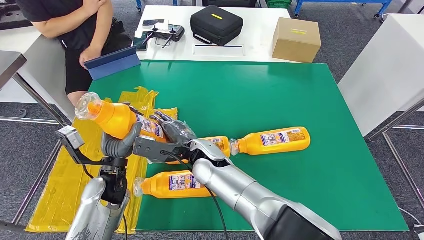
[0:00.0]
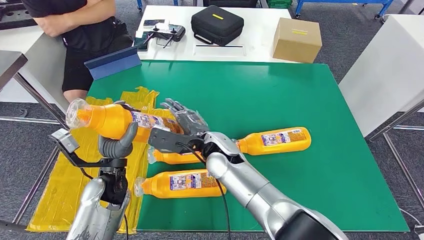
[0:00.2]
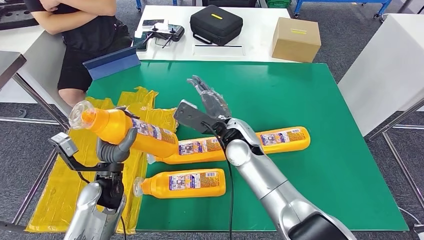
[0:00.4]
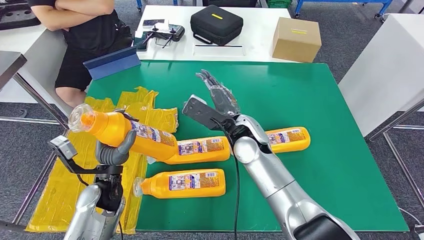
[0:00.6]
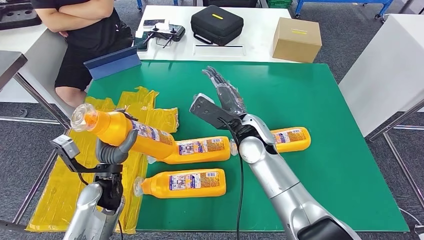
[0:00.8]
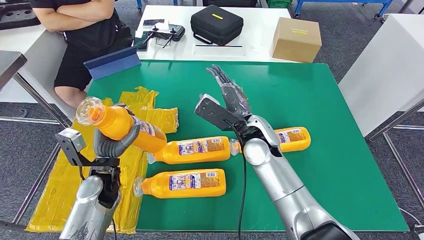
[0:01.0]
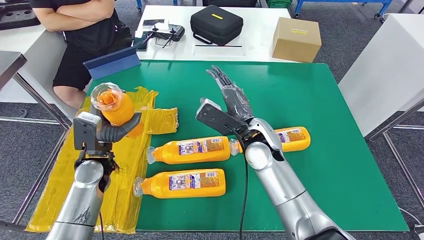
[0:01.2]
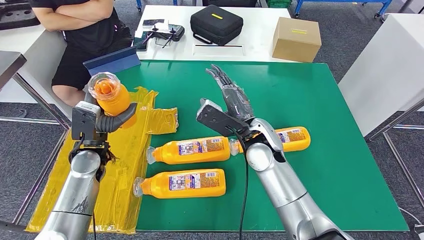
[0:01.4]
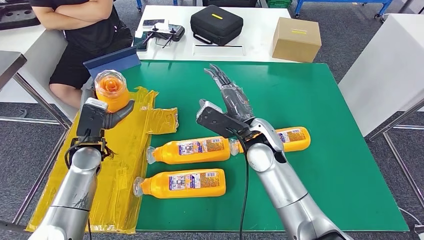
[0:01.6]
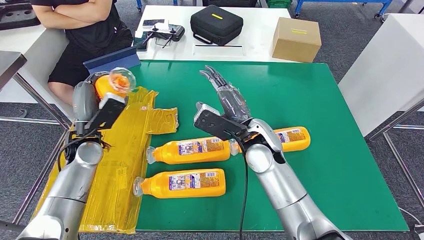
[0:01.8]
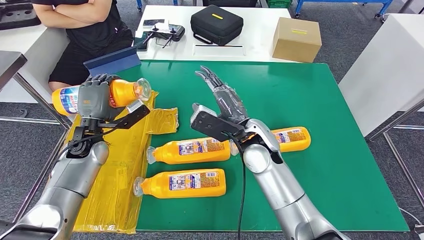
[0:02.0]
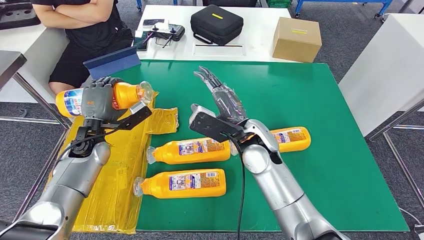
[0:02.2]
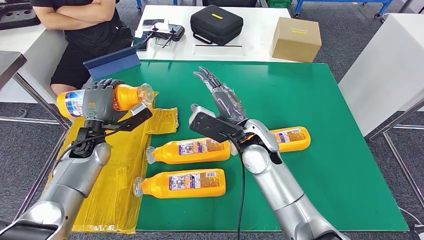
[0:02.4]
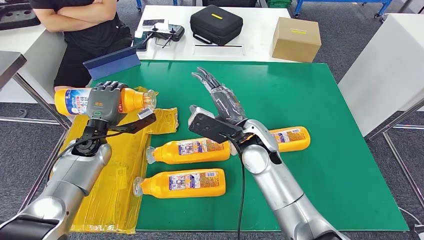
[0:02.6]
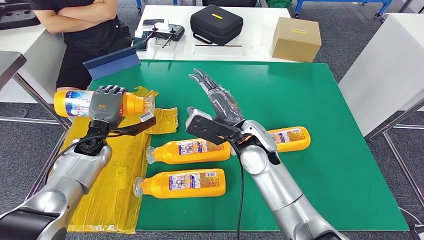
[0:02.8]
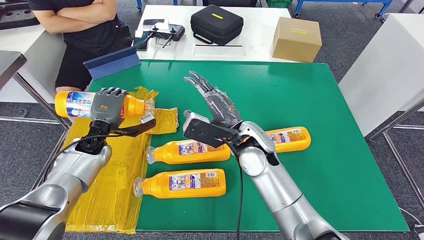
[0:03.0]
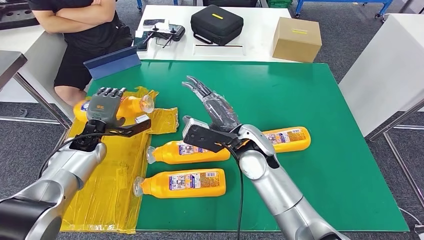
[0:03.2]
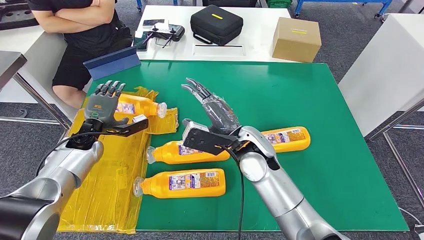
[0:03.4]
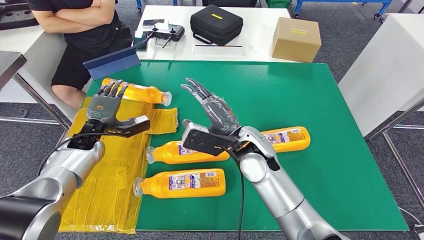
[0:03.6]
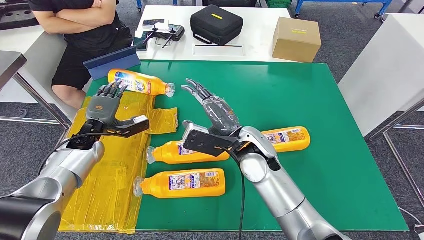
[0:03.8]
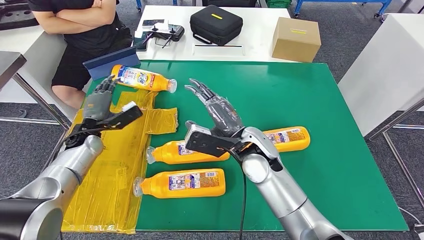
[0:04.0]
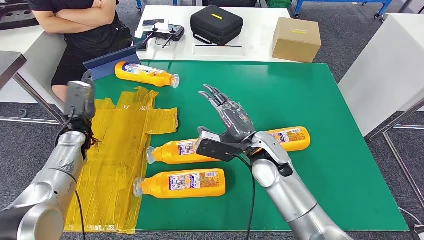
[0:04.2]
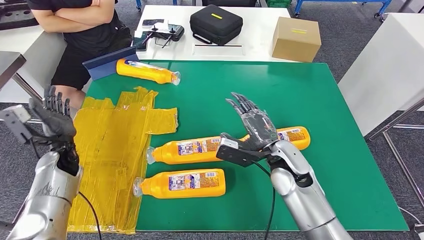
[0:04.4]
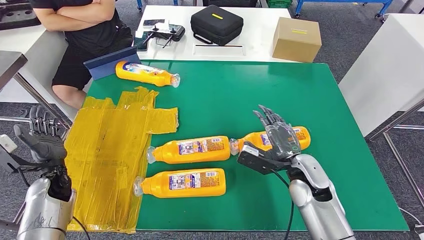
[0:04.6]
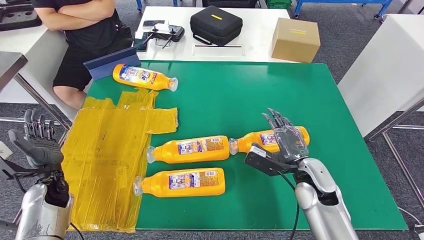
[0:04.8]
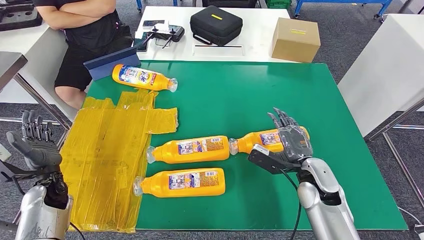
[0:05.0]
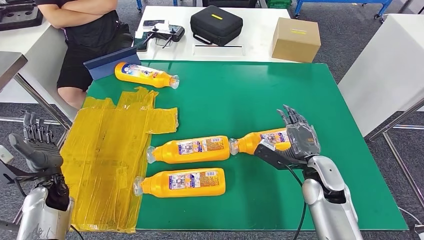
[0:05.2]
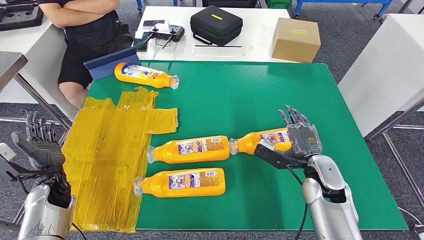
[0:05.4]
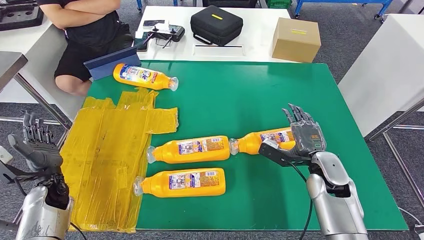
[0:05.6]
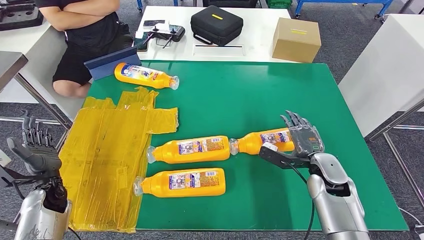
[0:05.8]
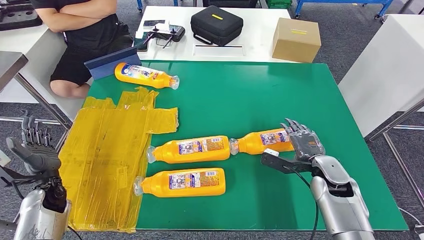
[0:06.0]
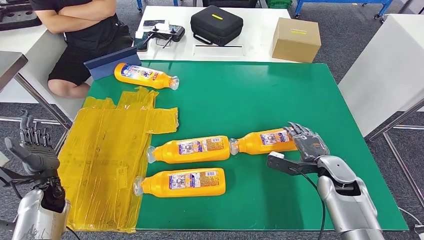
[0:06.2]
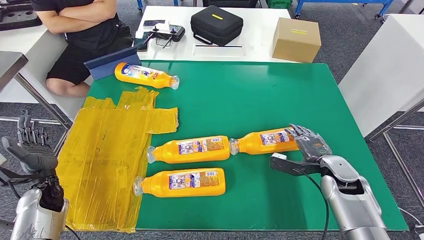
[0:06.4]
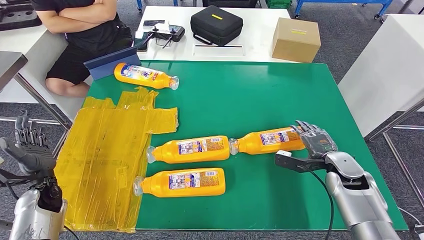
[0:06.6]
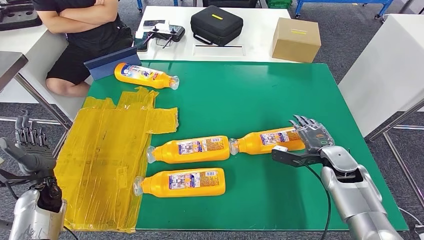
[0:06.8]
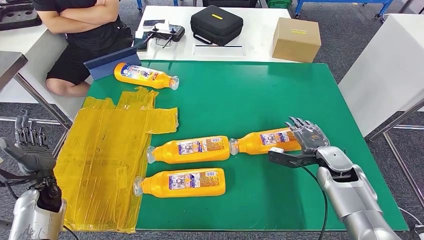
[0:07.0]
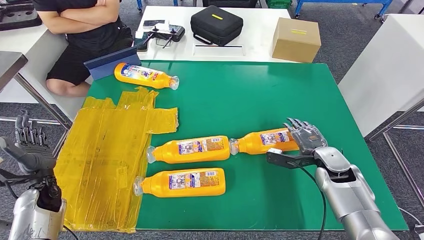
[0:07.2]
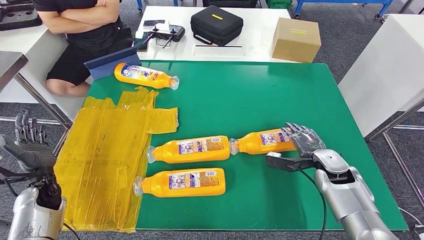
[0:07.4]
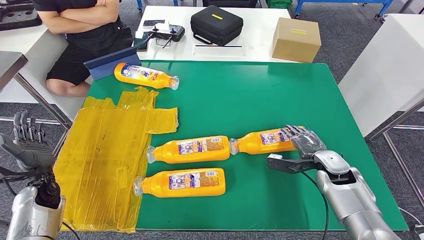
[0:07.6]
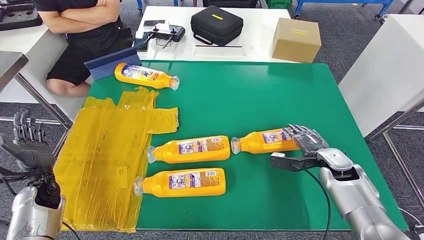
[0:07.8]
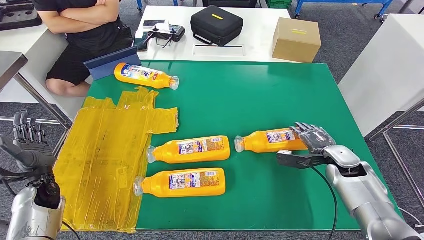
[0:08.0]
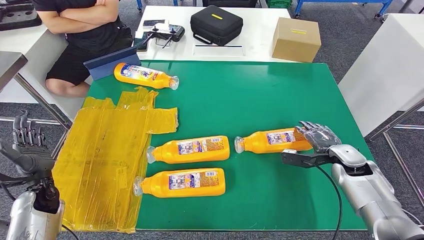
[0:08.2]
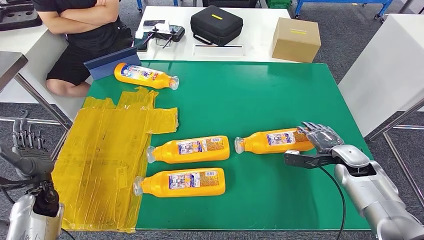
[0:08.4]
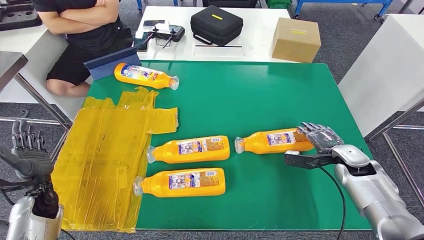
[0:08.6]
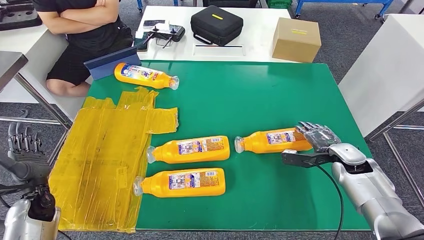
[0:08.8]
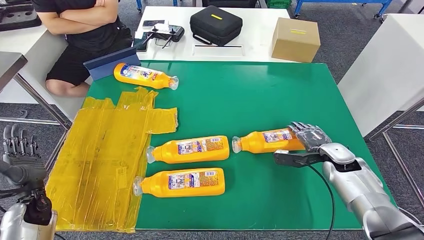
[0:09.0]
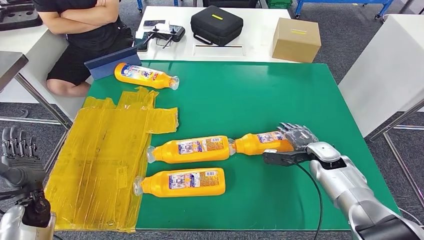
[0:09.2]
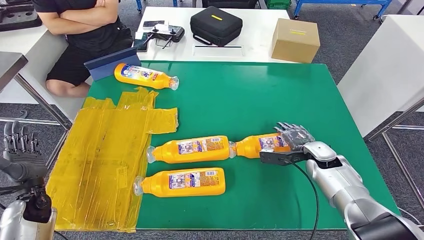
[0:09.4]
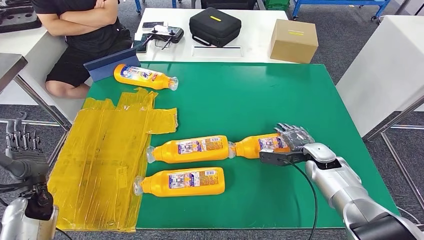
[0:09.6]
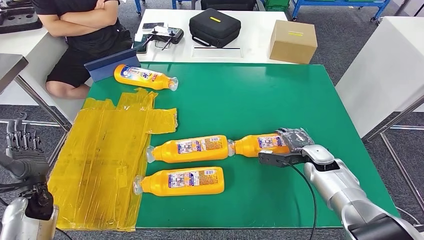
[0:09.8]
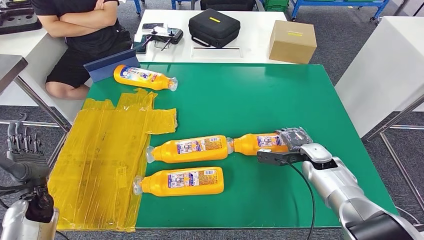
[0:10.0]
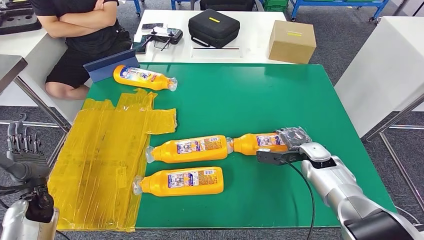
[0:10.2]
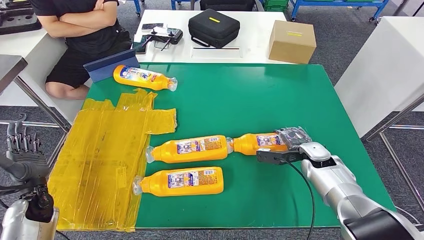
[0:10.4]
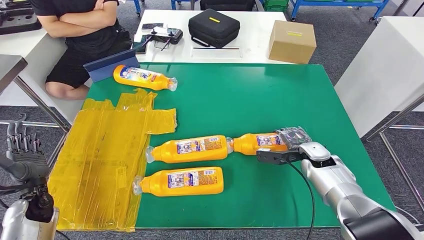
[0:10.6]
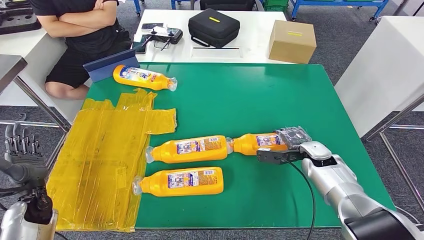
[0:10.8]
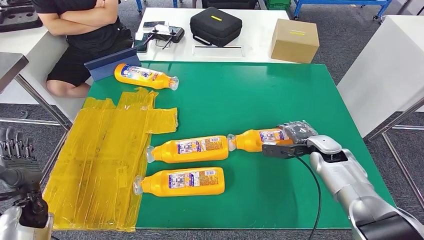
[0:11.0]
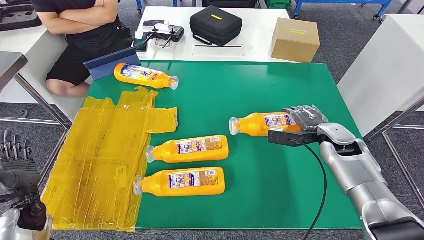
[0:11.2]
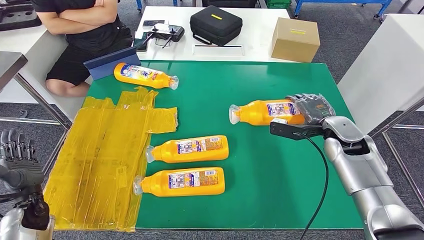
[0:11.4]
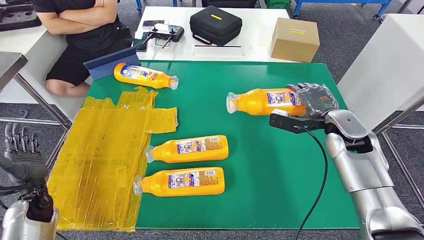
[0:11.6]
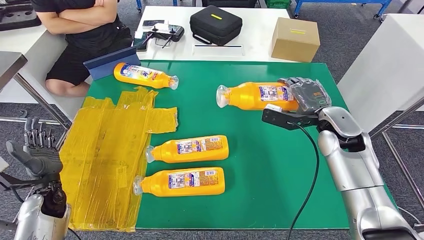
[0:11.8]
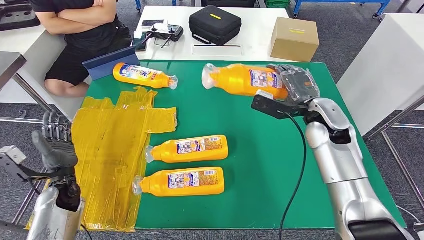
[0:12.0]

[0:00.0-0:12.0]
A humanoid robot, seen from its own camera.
Step, 0:00.0 to 0:02.2: Flip the bottle to face forward.
0:01.6 to 0:03.0: The left hand moves forward, approximately 5 cm.
0:06.0 to 0:07.6: The hands make only small movements.
0:07.6 to 0:09.0: There are only small adjustments of the hands.

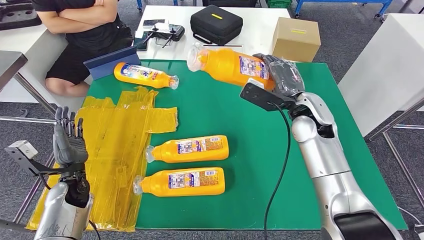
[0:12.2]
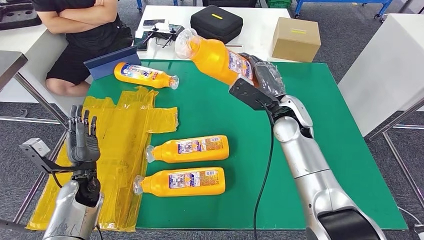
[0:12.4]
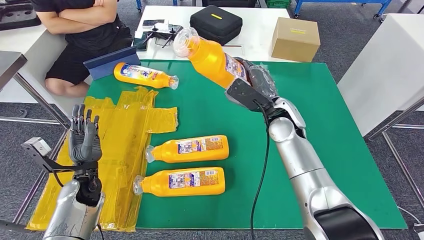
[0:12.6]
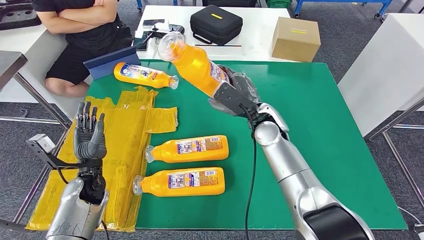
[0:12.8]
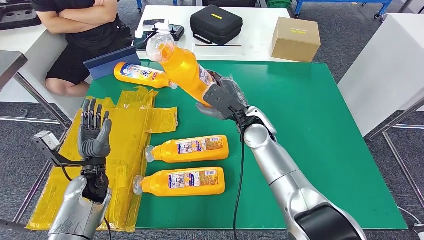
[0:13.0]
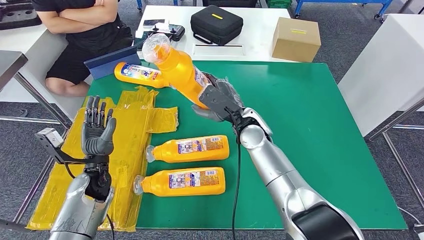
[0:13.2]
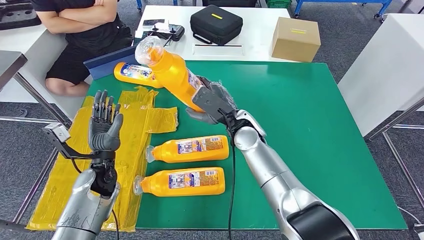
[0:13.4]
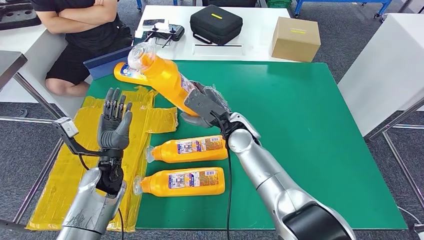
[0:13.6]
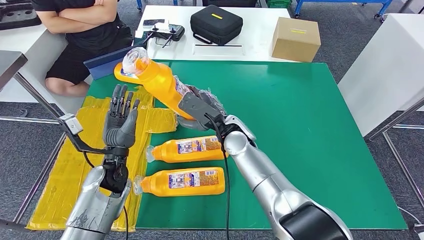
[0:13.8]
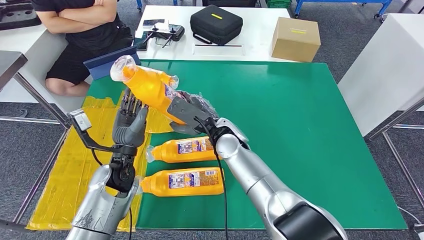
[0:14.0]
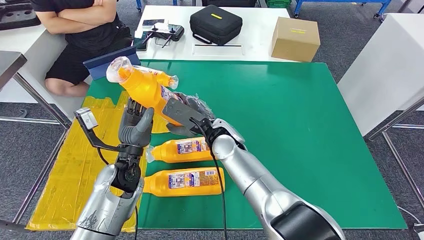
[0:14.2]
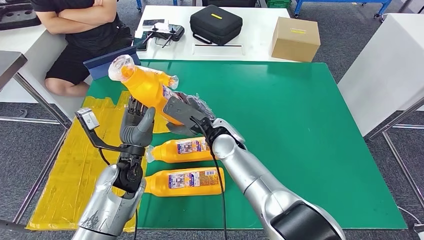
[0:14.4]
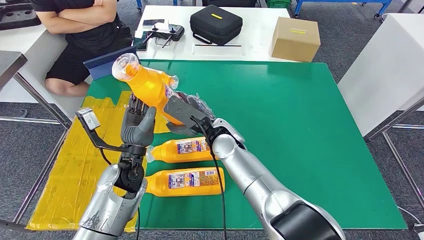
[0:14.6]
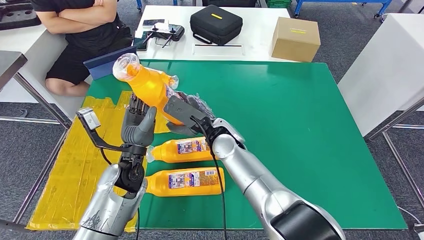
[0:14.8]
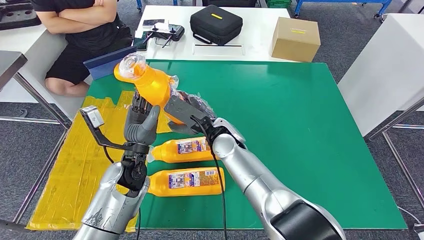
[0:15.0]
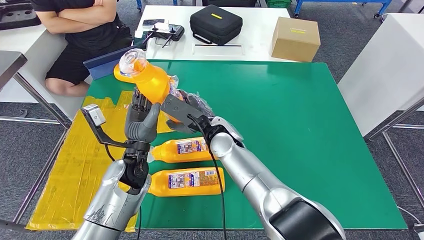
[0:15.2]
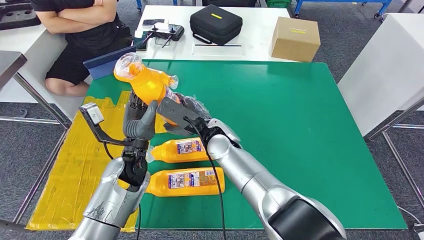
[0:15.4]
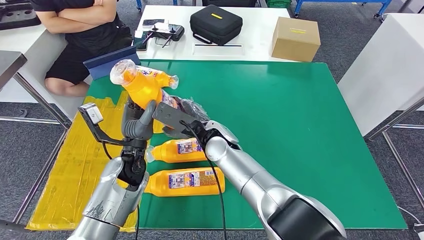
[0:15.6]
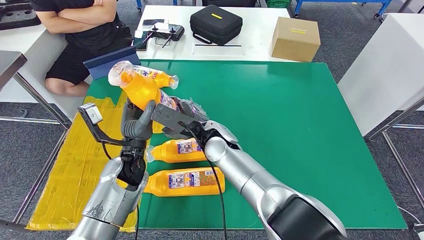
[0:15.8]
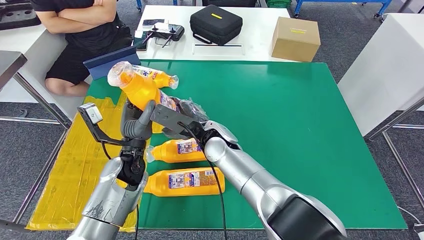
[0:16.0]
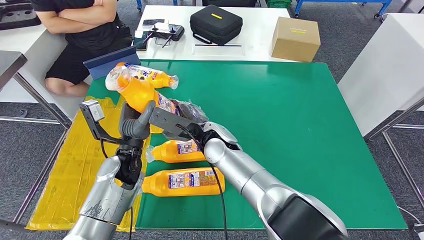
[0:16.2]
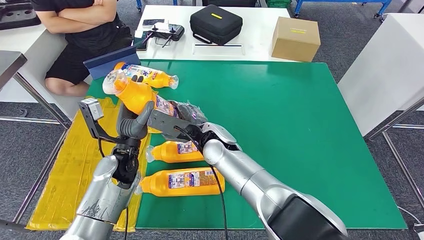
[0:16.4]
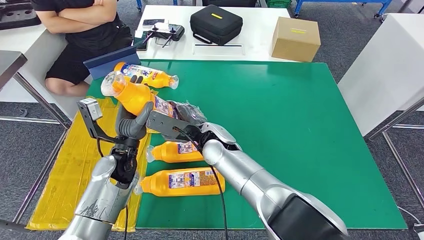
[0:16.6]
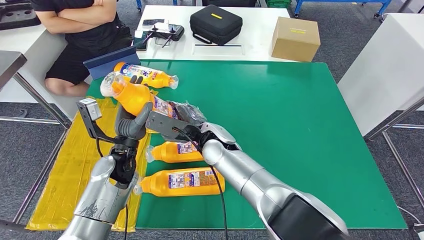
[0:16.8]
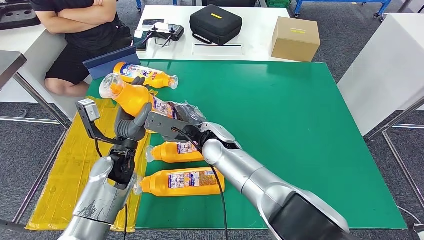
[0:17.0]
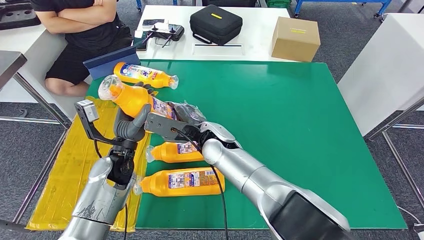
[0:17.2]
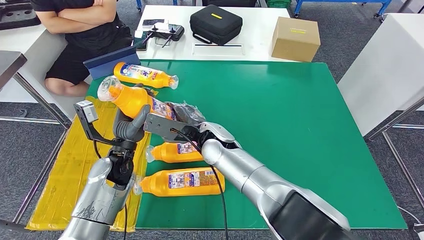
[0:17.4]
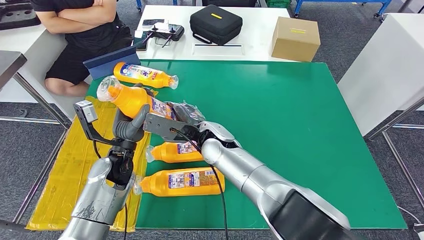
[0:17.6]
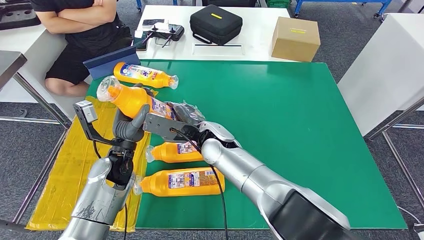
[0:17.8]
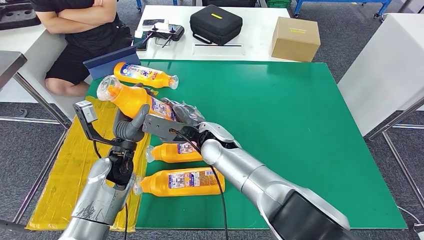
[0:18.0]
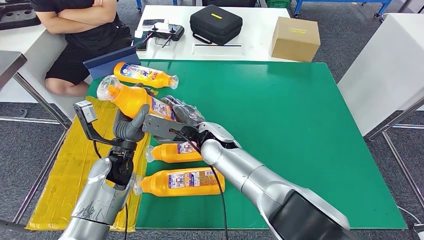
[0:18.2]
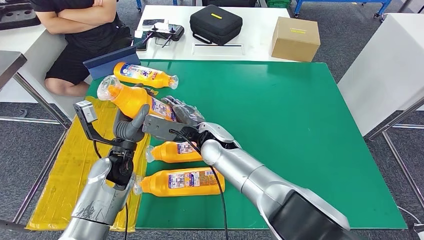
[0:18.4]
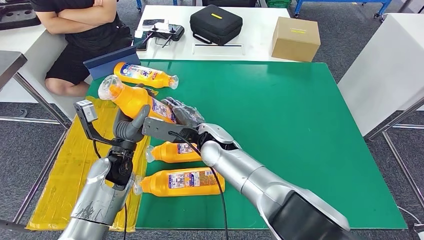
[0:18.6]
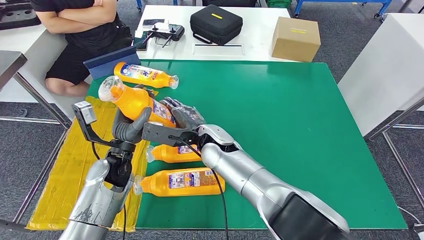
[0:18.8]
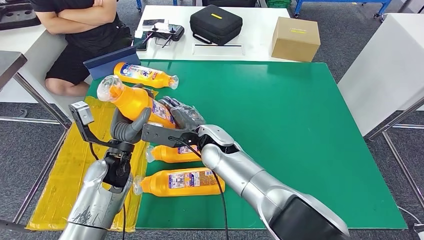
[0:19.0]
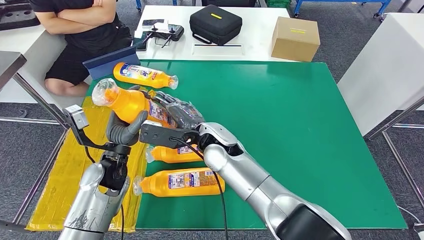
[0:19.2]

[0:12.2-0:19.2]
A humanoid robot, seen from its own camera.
Step, 0:12.2 to 0:14.6: Pick up the bottle from the table.
0:13.6 to 0:15.0: The left hand is displaced to the right by about 5 cm.
0:15.0 to 0:17.8: The hands move only a little.
0:17.8 to 0:19.2: There are only small adjustments of the hands.
